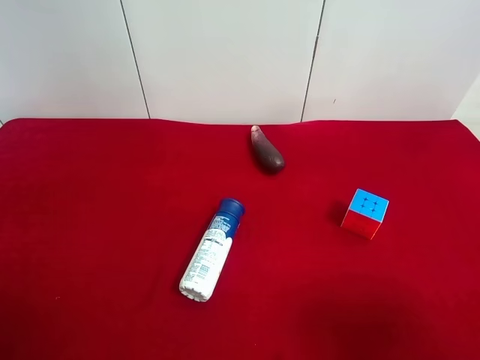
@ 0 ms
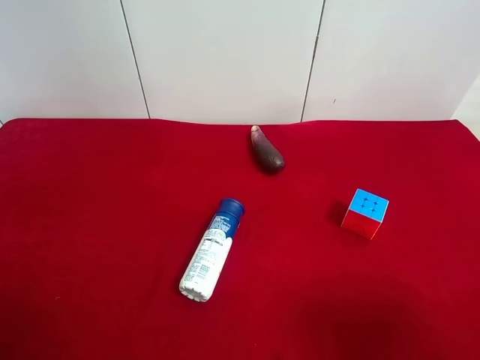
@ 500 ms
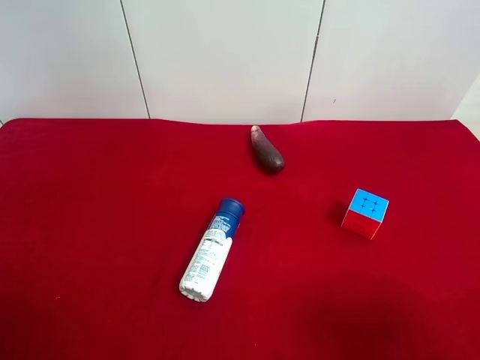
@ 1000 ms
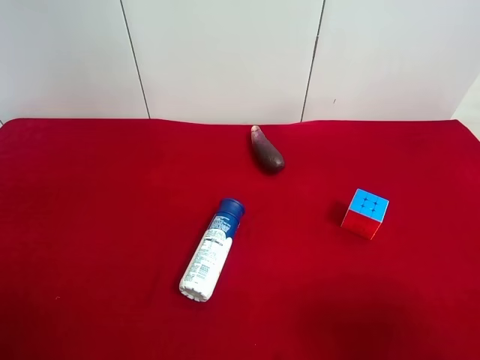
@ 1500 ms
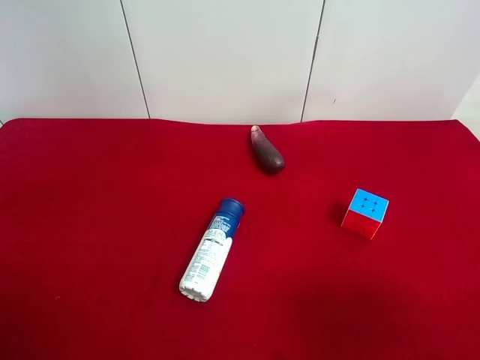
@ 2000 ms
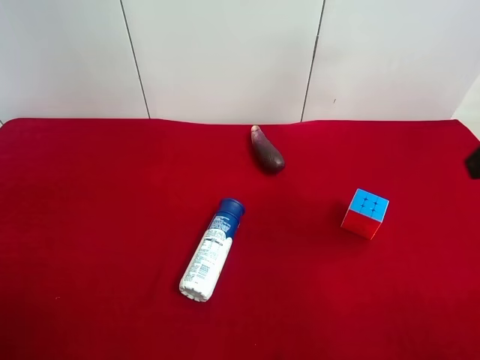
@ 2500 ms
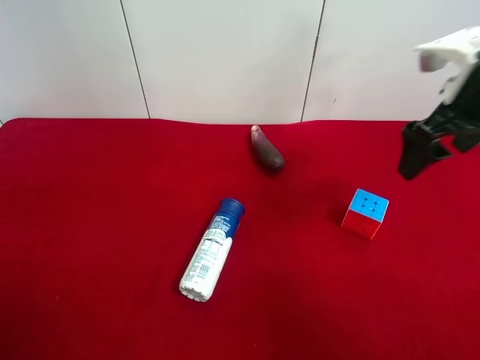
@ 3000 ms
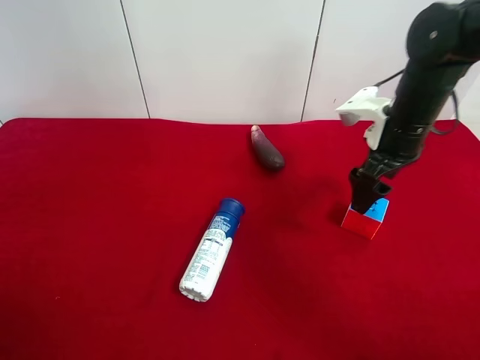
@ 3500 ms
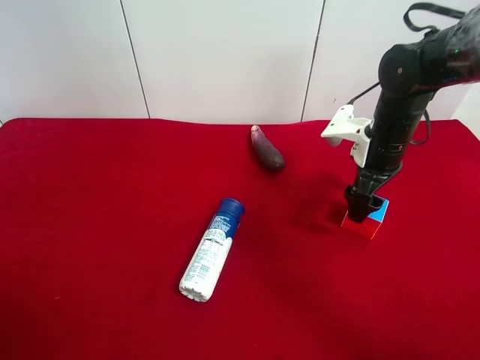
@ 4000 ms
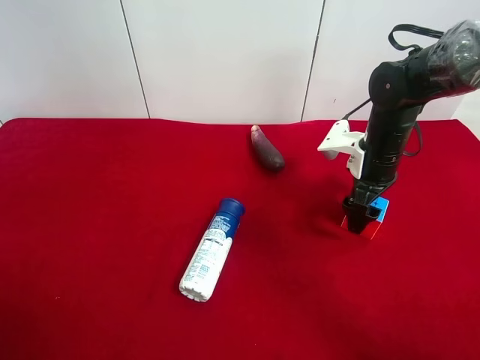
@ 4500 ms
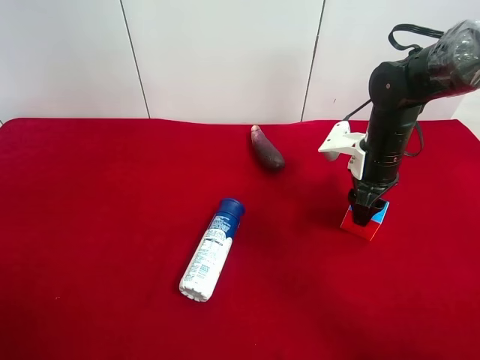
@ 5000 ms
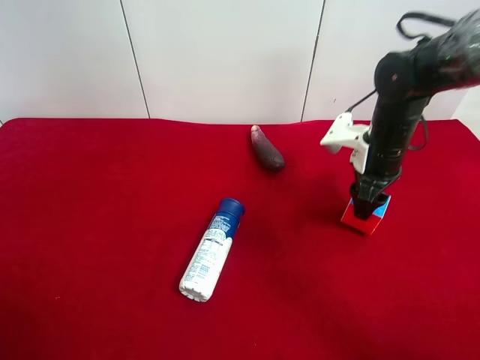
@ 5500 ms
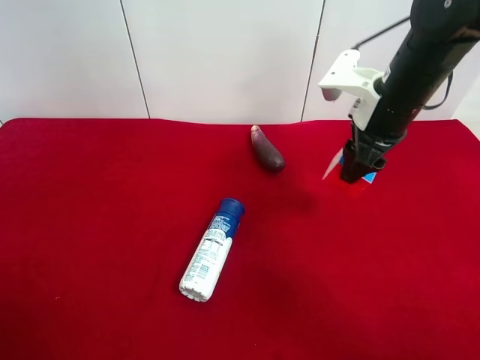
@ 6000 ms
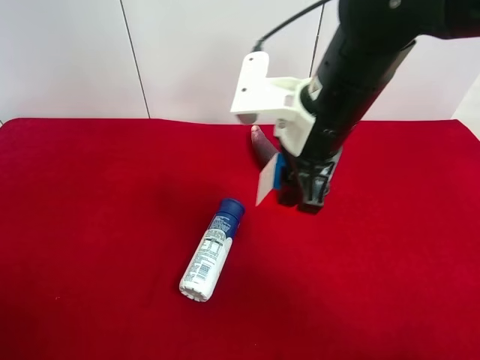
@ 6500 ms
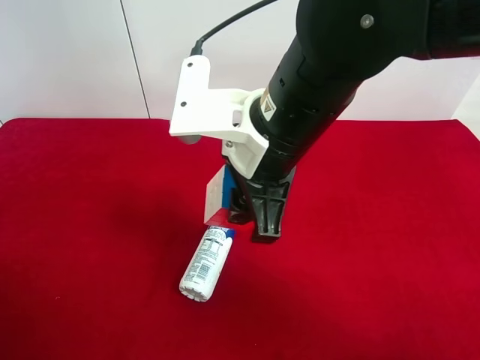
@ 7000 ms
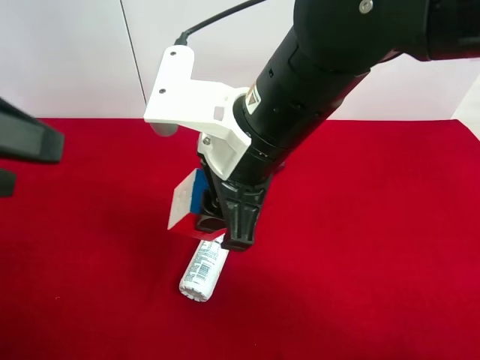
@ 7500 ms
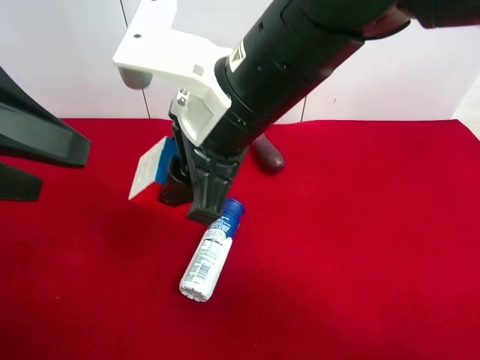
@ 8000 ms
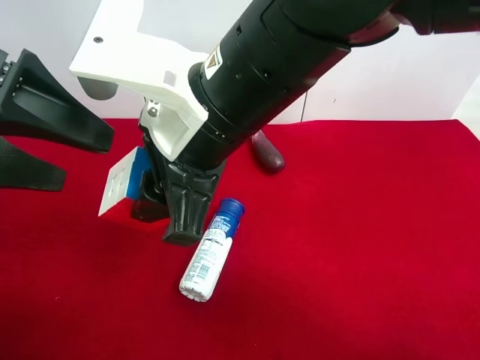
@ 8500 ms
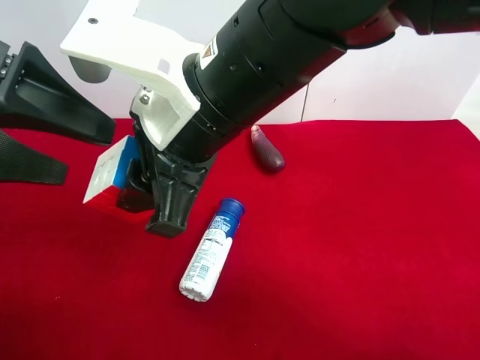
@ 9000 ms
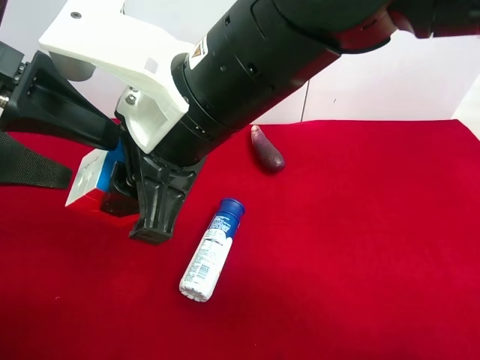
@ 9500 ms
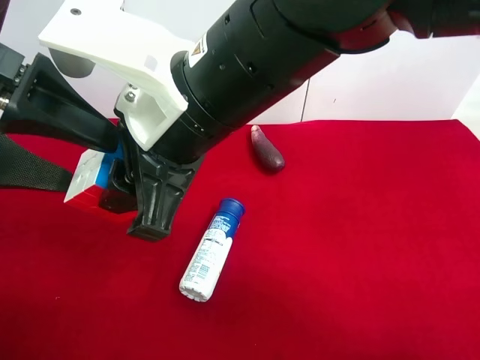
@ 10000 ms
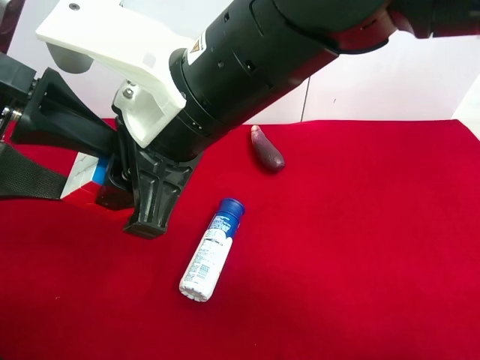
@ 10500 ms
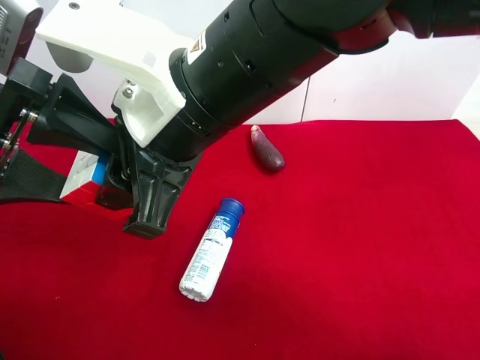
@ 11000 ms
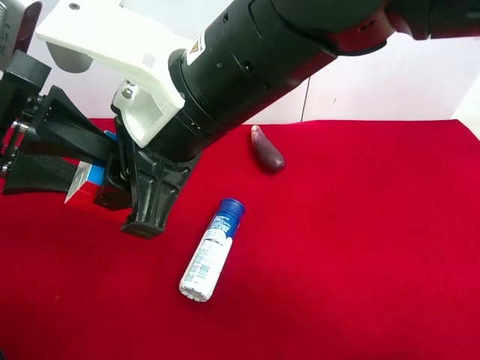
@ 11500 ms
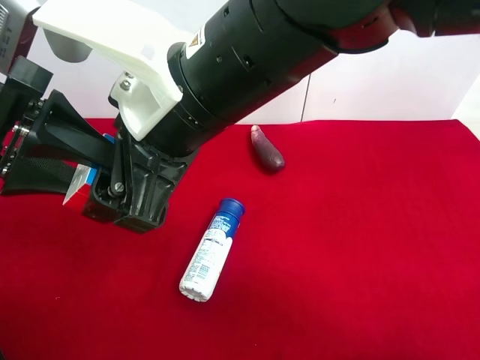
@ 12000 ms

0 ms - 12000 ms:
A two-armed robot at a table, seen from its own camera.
Task of the whole recording: use the right gripper to pick up the item and transfer it from the right gripper to the left gripper.
Step, 0 ms - 5000 ms: Use the right gripper to grab the Rubik's Cube on the right side of the table.
2000 ms - 4000 ms: The right gripper heads forward and downward, covering roughly 35 cm.
4000 ms - 6000 ms: The right gripper shifts approximately 10 cm upward, and closes its fingers.
6000 ms - 8000 ms: The right gripper travels to the left and backward by about 20 cm. Meanwhile the left gripper travels forward and to the right by approximately 15 cm.
10000 ms - 12000 ms: The right gripper opens; the left gripper closes its fingers.

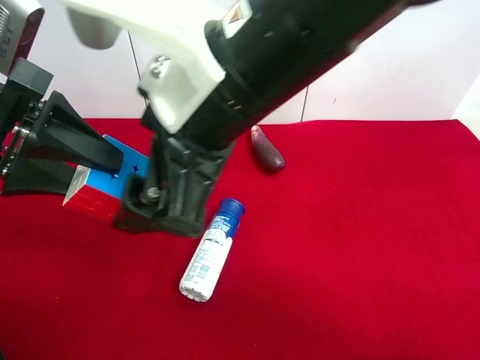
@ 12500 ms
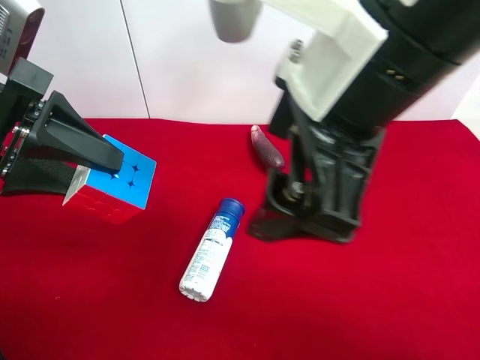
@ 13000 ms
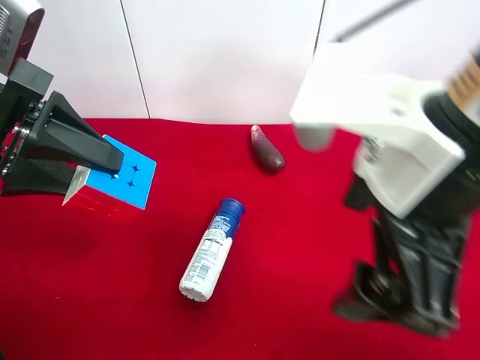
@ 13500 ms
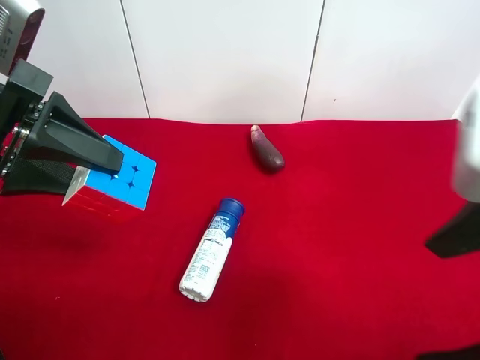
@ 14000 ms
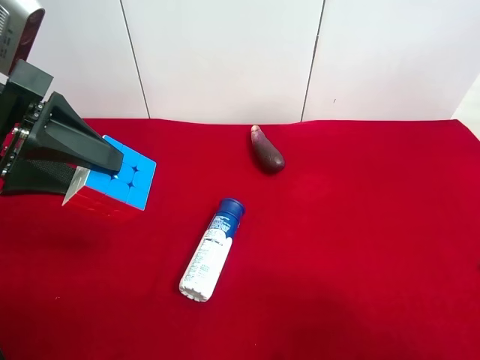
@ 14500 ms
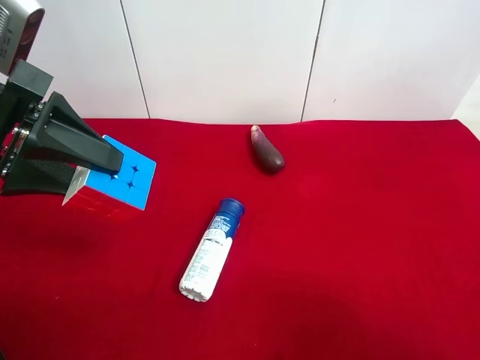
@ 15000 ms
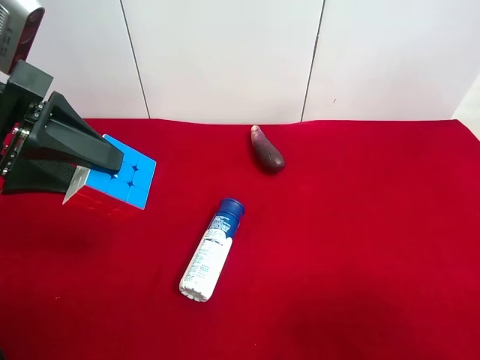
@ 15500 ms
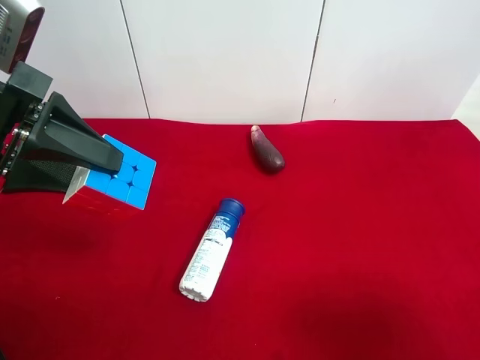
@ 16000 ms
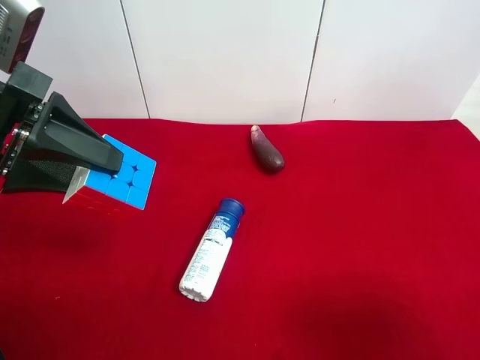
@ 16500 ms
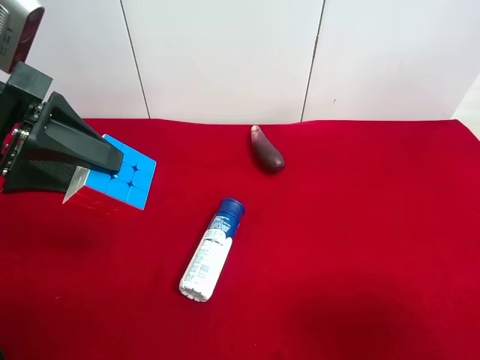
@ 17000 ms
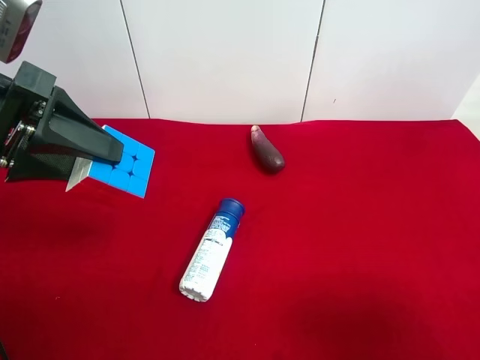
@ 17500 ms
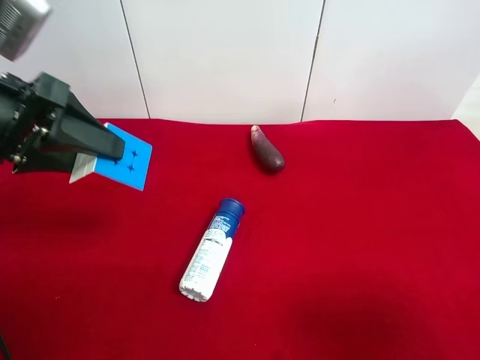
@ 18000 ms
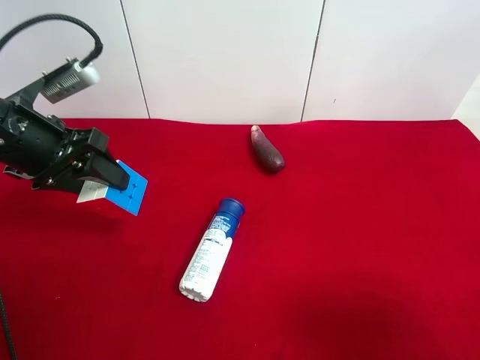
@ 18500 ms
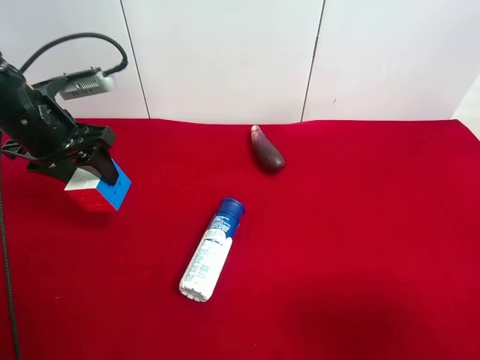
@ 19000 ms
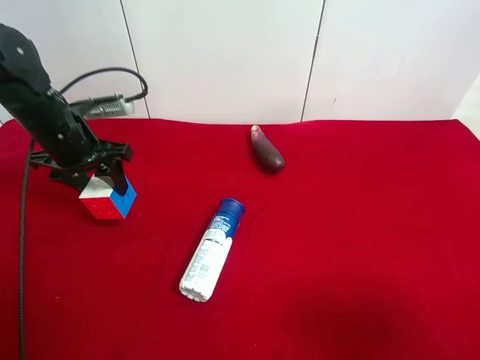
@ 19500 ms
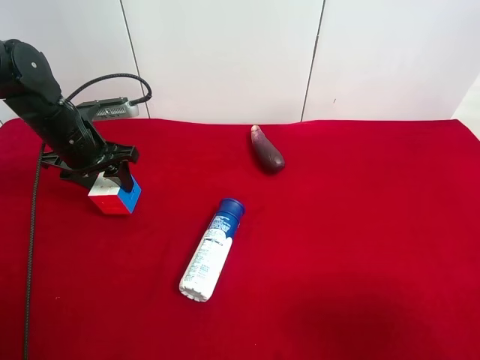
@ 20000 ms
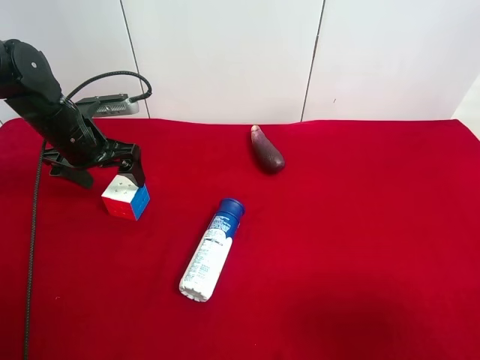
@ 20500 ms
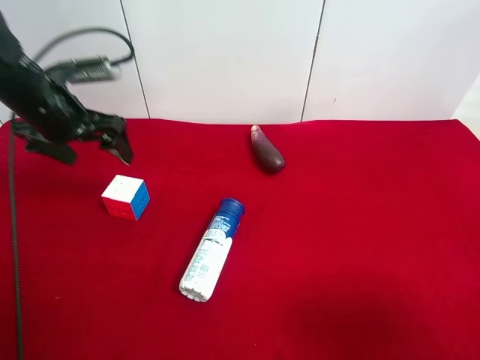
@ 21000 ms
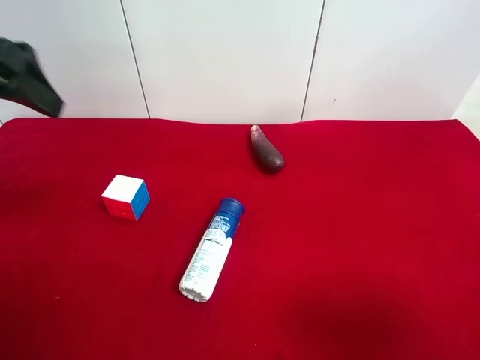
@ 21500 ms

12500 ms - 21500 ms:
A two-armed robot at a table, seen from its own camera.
Task of the whole recording: use the right gripper to pick up the item and transfer it from the right gripper to the left gripper.
Step, 12500 ms - 20000 ms: The left gripper places Rubik's Cube on the left side of the table.
12500 ms - 14500 ms: The right gripper heads to the right and backward, covering some 30 cm.
17000 ms - 19500 ms: The left gripper is displaced forward and downward by approximately 20 cm.
19500 ms - 21500 ms: The left gripper goes approximately 25 cm upward and backward, and opens.

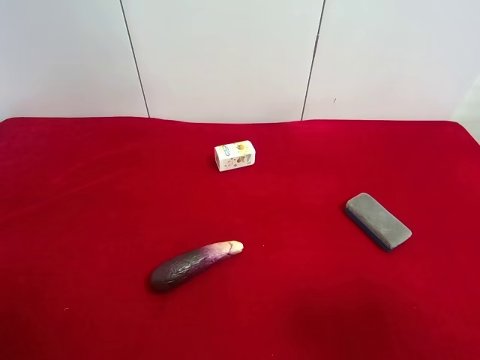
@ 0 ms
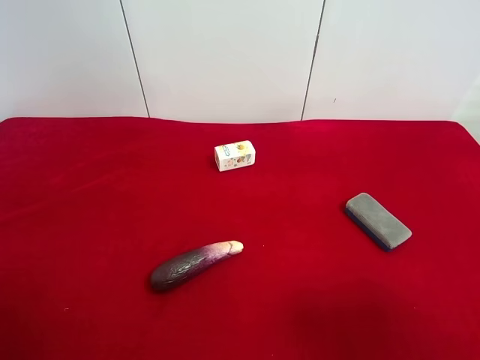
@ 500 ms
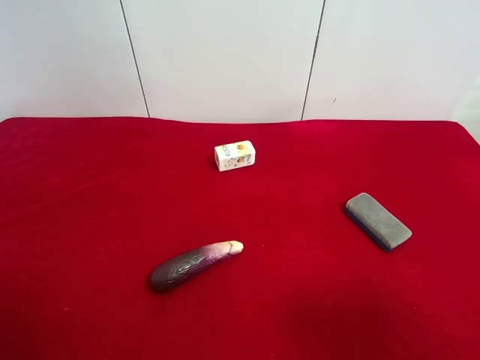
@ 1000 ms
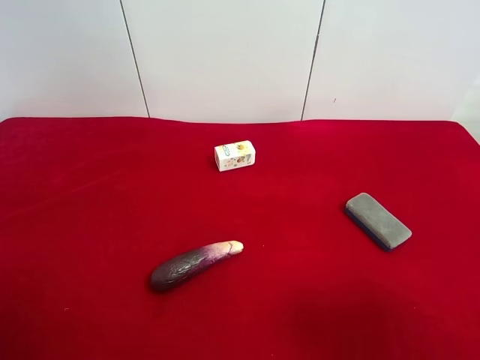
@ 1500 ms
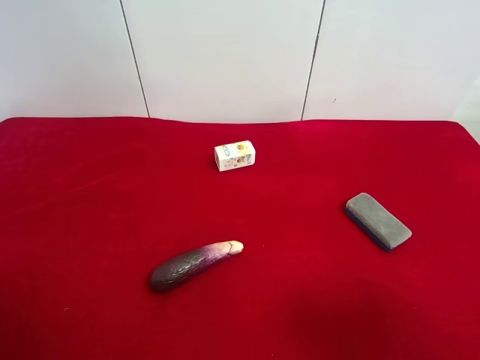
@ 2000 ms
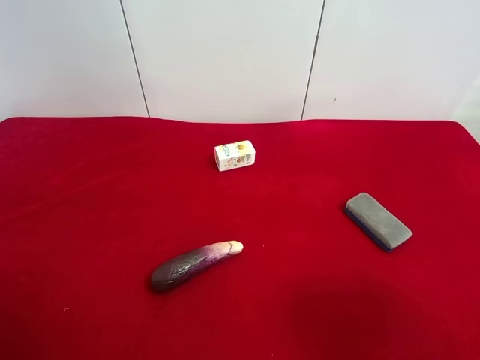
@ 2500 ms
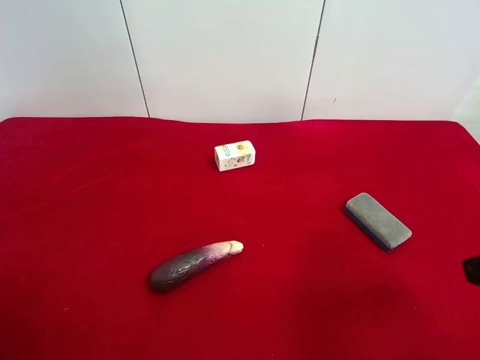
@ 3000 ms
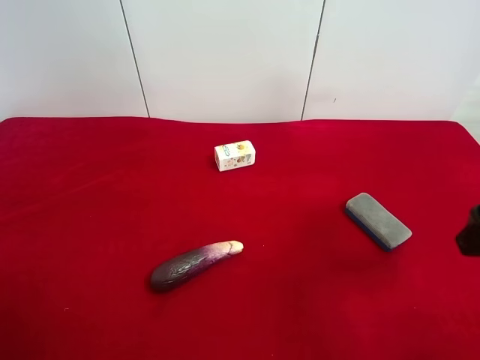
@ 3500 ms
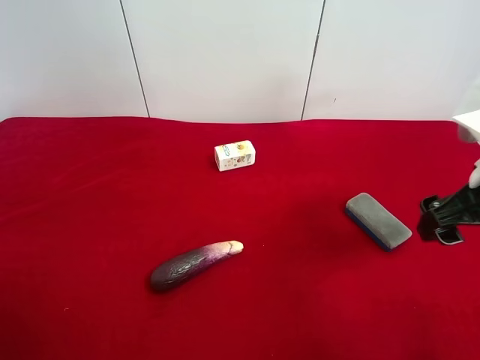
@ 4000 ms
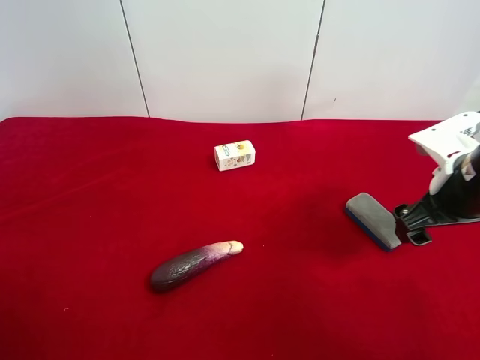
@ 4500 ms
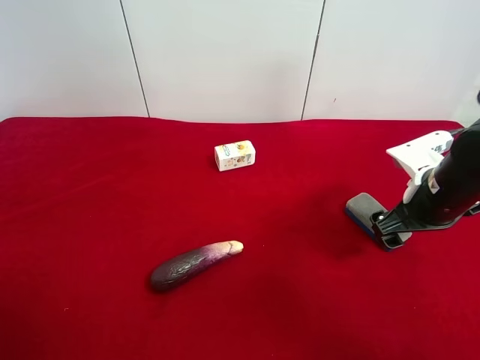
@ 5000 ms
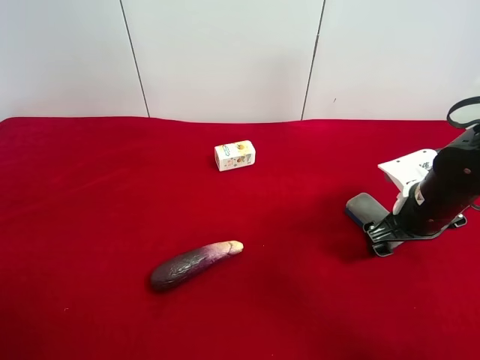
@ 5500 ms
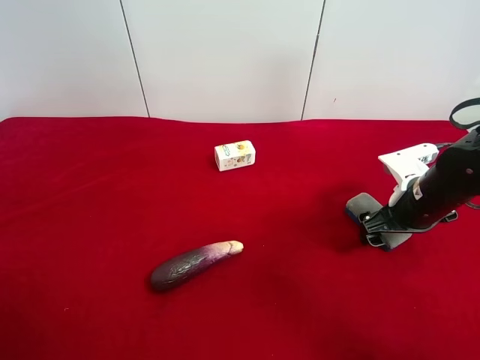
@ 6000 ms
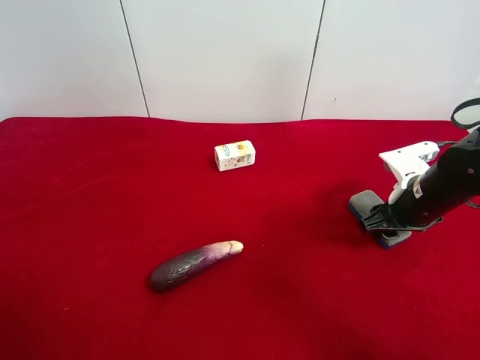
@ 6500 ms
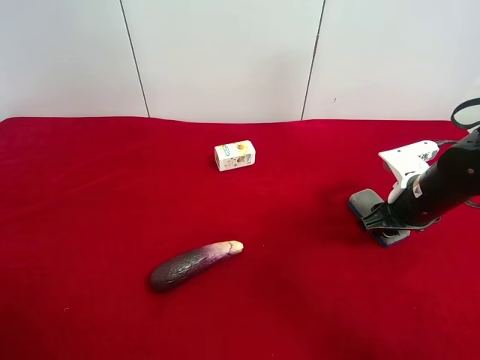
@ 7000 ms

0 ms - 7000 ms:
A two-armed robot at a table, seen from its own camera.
Task of the whole recording: use the right gripper to pick up the item and transfer it from the right gripper to the left gripper.
Step, 0 ms - 6500 ms: Use the right gripper to grab the blue blackboard erasure on the right side of the table.
0 ms - 2000 ms: The two grippers keep their place.
3500 ms - 5000 ms: The right gripper shifts about 15 cm downward and forward.
5000 ms - 7000 ms: The right gripper closes up.
